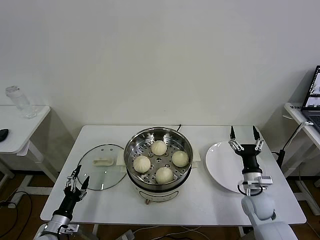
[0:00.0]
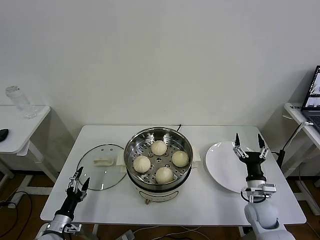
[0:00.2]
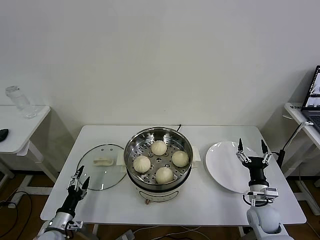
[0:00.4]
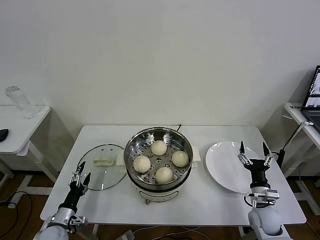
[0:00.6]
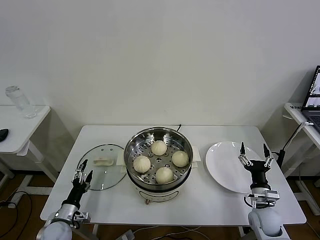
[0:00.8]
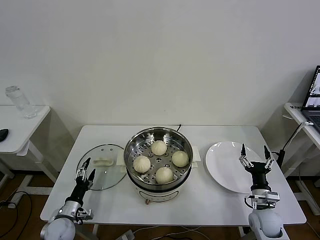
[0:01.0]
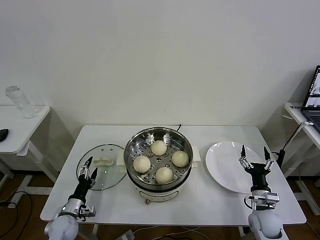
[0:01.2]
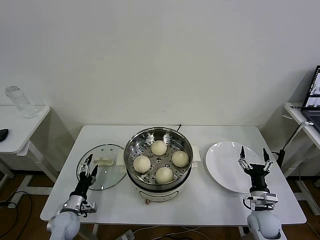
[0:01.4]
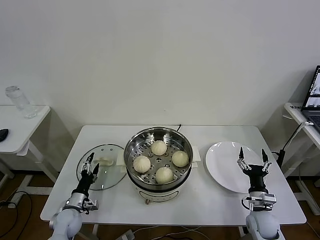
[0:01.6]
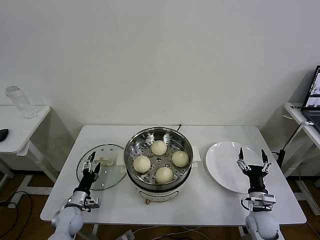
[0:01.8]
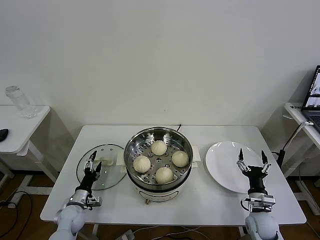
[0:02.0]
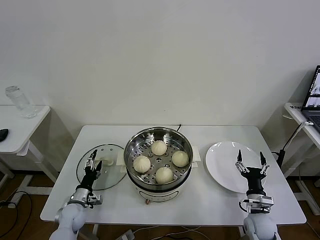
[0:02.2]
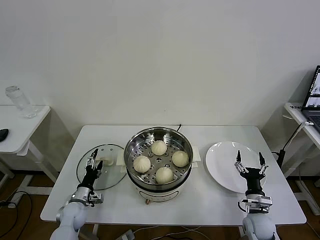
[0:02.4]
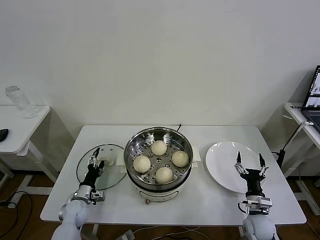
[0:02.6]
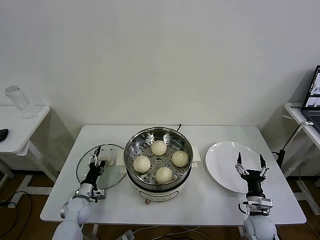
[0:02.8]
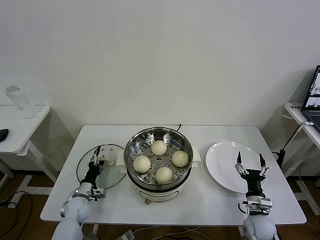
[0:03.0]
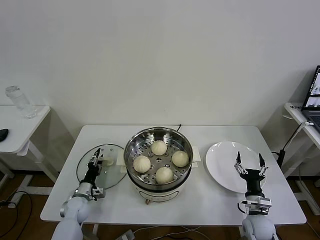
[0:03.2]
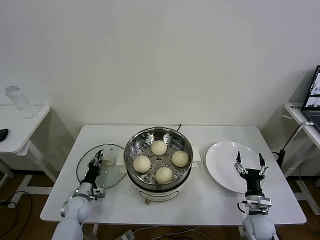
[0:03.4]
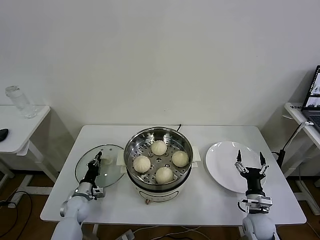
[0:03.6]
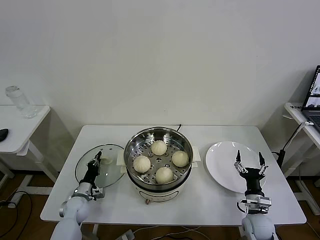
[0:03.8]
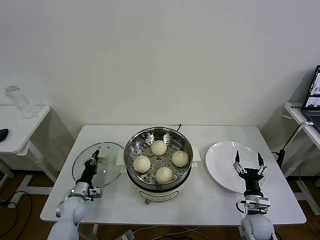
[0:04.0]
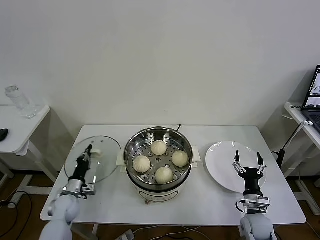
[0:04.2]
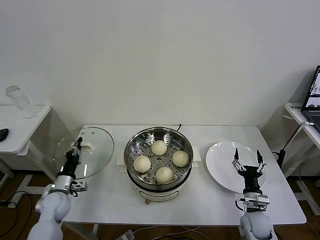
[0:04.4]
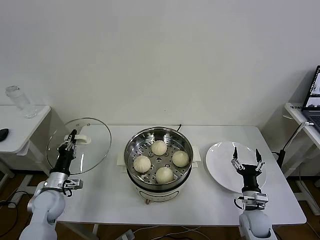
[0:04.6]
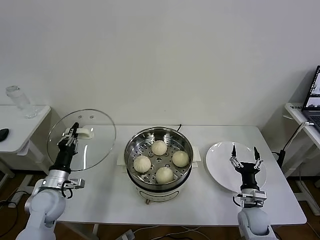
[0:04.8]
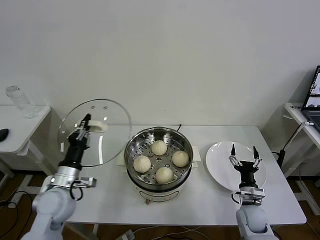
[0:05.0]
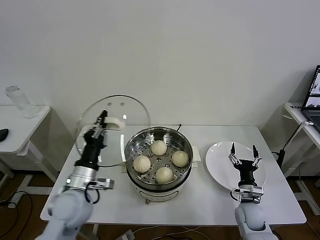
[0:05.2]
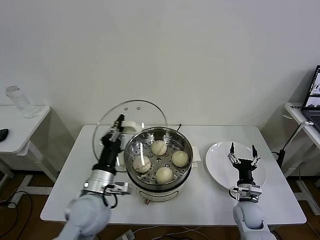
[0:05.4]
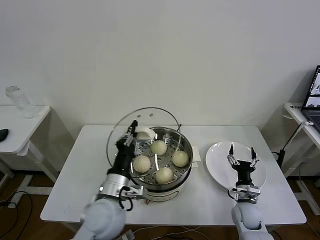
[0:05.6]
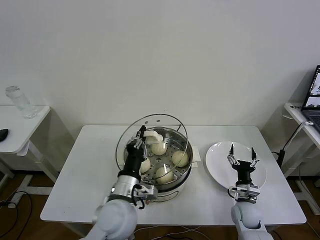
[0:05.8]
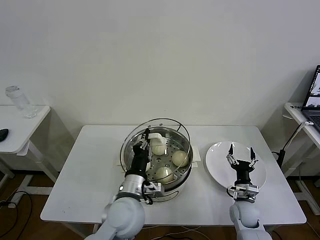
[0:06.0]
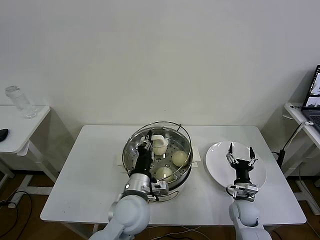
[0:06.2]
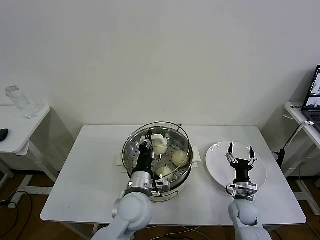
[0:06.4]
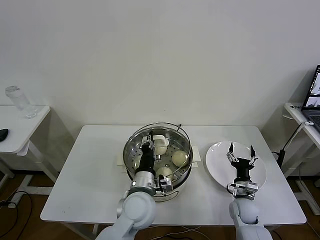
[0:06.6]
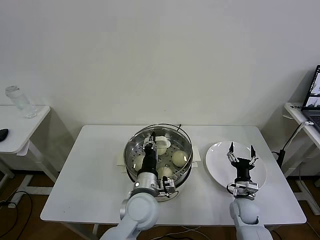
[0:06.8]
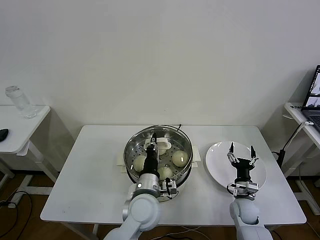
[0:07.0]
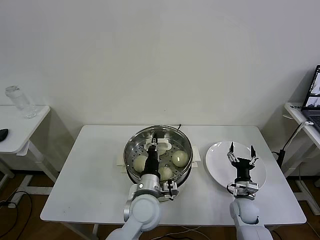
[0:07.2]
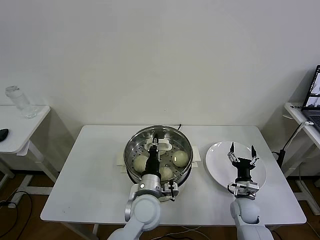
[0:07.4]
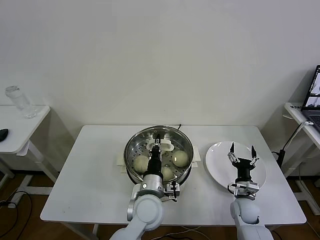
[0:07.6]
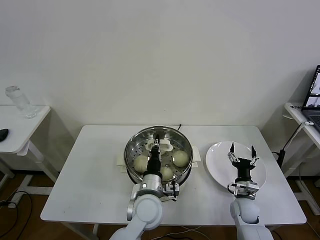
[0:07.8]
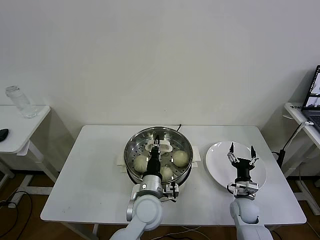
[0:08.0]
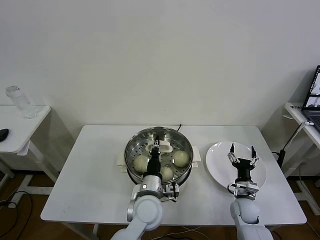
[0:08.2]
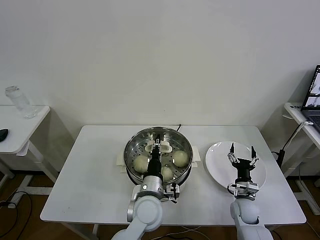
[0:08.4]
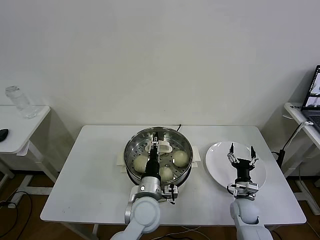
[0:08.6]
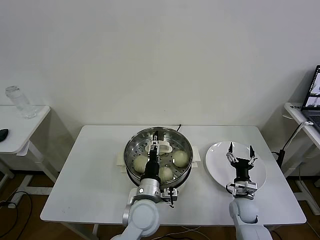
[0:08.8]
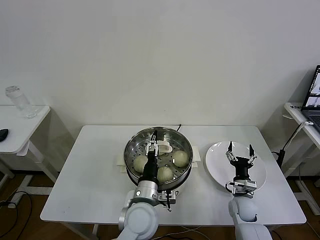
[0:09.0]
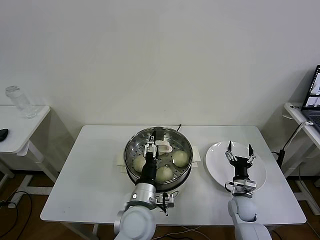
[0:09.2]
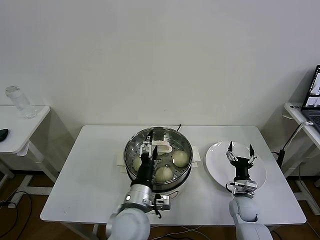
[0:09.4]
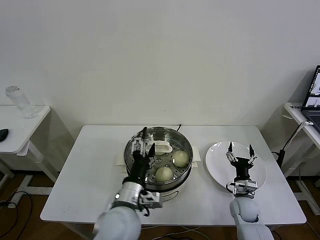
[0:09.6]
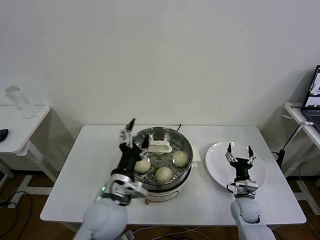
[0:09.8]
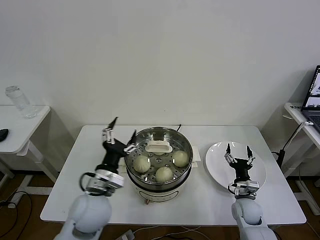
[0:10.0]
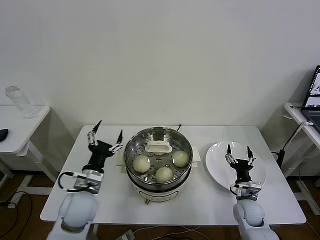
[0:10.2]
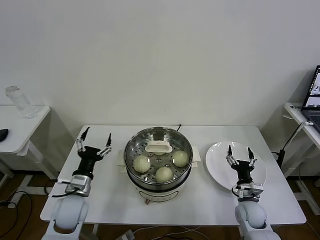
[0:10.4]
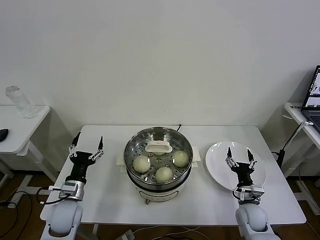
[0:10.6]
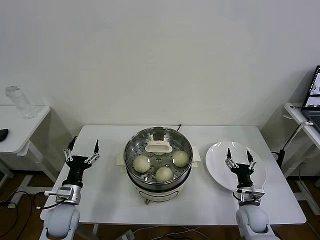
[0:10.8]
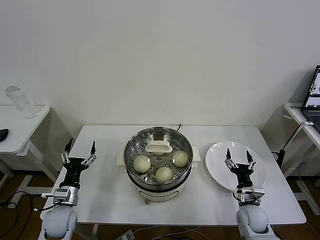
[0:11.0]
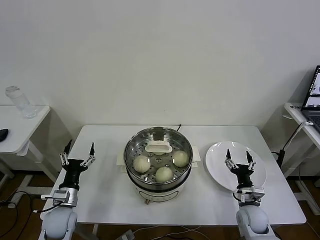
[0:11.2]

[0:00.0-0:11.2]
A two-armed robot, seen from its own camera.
Task of the whole recording: take steamed baozi put them in steamer then cover it.
Step, 0:00.0 to 0:03.8: Grasp the pot lid with left gripper.
Step, 0:04.0 to 0:08.8: Place the pot lid on the steamer with left gripper.
0:00.0 to 0:01.6: The right gripper goes about 5 cm downward; the left gripper heads forward, covering about 10 cm.
0:01.6 to 0:03.2: The left gripper goes about 5 cm forward, and closes its fingers.
0:03.2 to 0:04.8: The left gripper heads upward, covering roughly 15 cm, and closes its fingers.
0:04.8 to 0:06.4: The left gripper travels to the right by some 30 cm.
0:06.4 to 0:08.0: The left gripper moves some 5 cm.
0:08.0 to 0:09.6: The left gripper shifts about 10 cm upward, backward and to the left, and opens.
0:09.6 to 0:11.2: The left gripper shifts some 30 cm to the left and downward.
